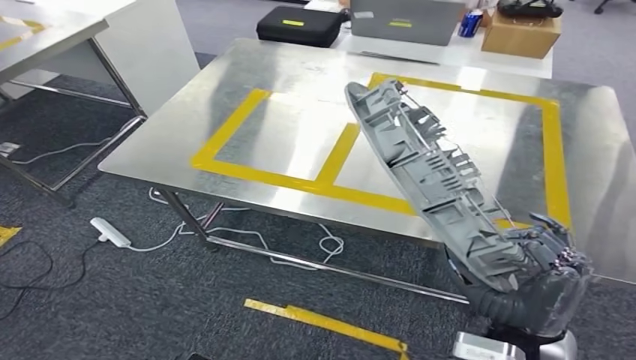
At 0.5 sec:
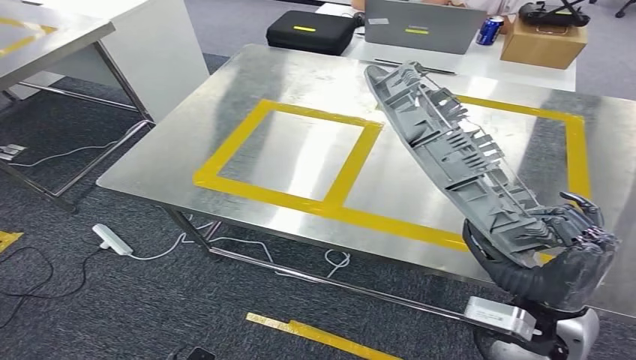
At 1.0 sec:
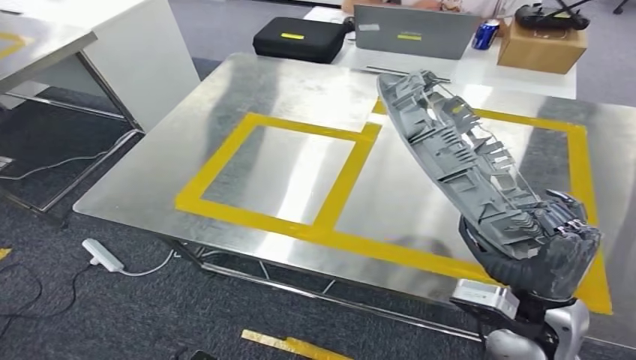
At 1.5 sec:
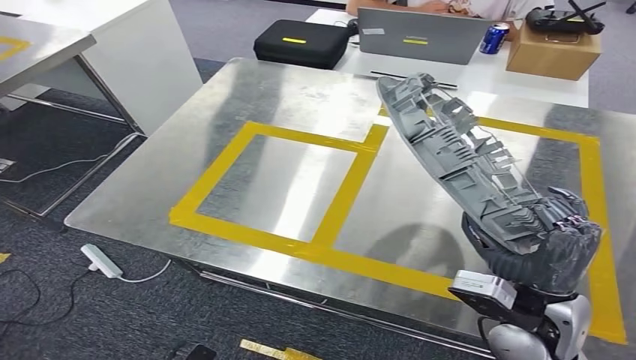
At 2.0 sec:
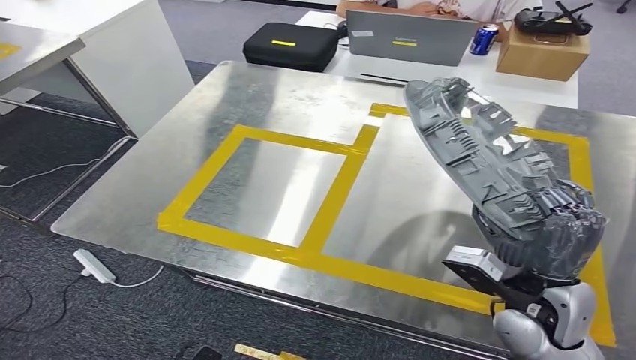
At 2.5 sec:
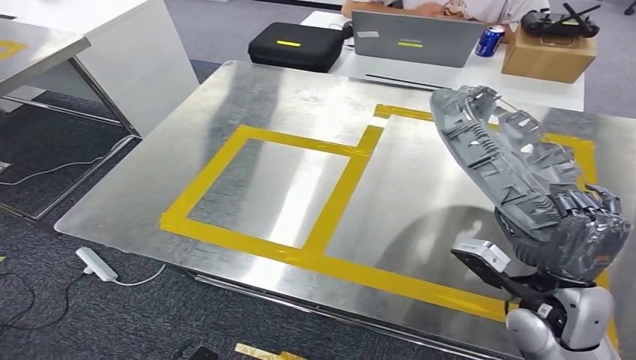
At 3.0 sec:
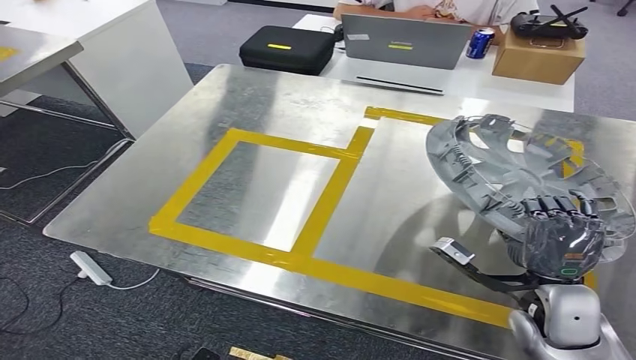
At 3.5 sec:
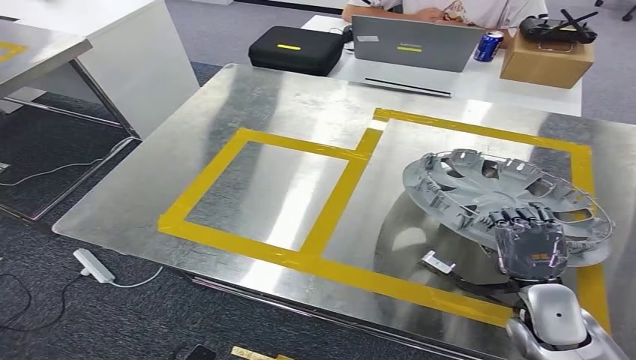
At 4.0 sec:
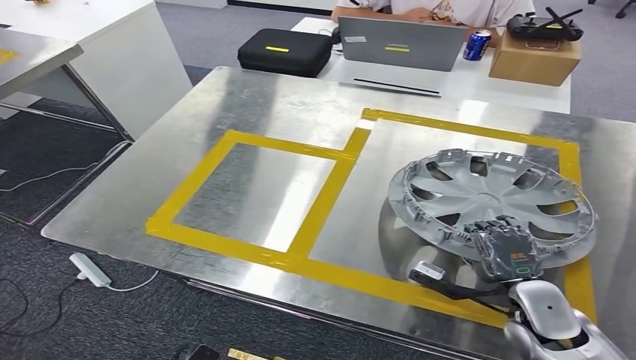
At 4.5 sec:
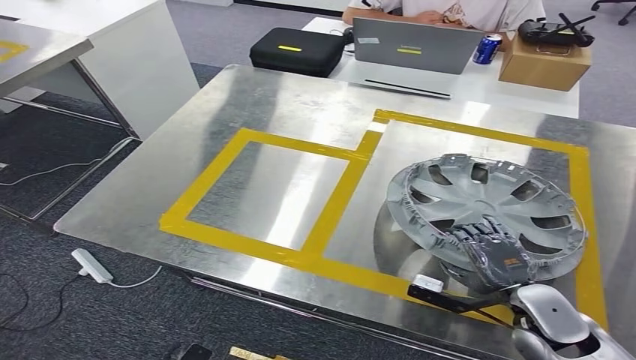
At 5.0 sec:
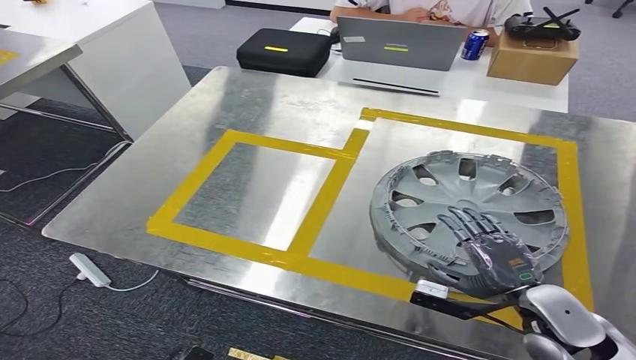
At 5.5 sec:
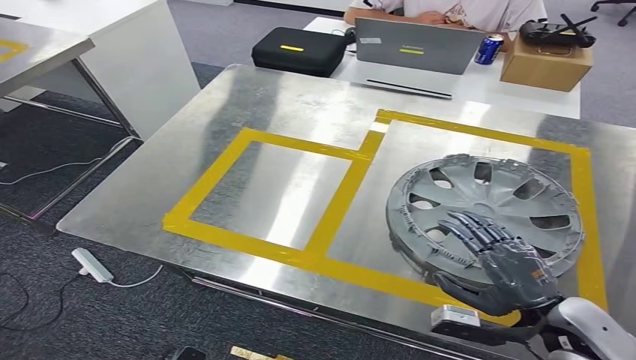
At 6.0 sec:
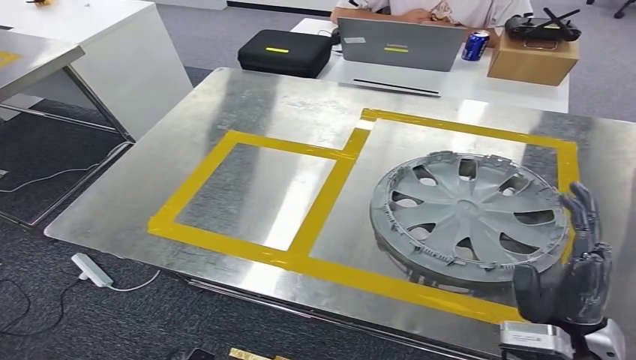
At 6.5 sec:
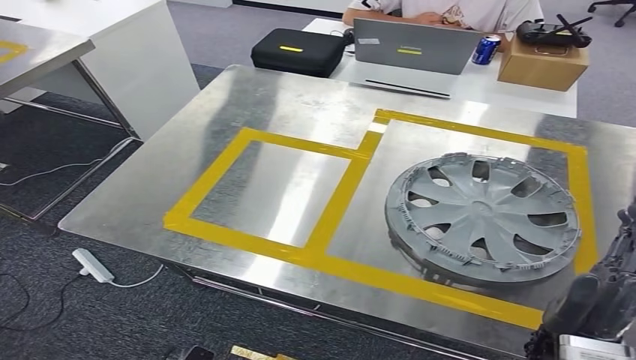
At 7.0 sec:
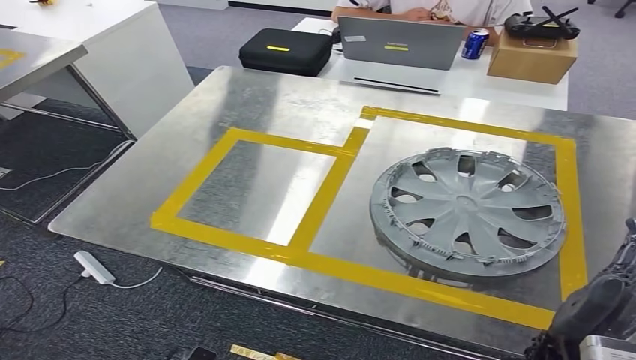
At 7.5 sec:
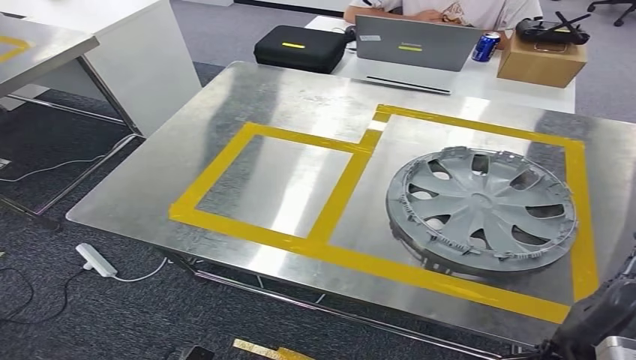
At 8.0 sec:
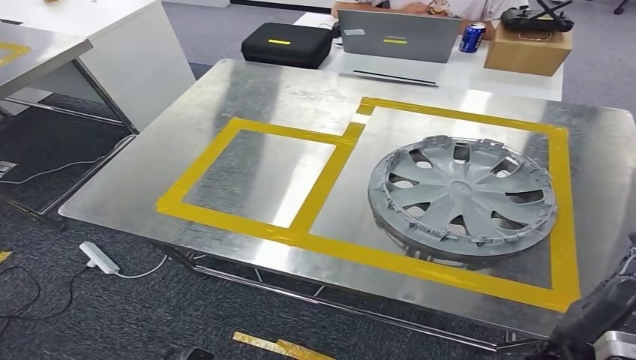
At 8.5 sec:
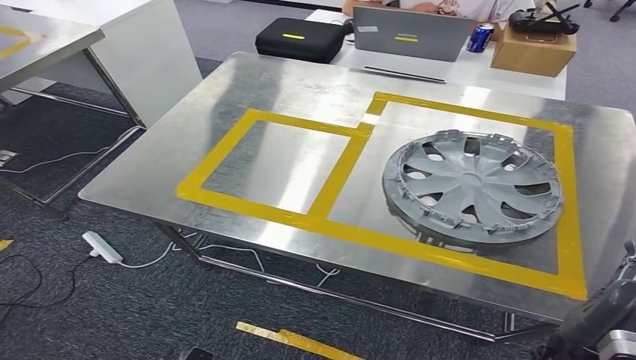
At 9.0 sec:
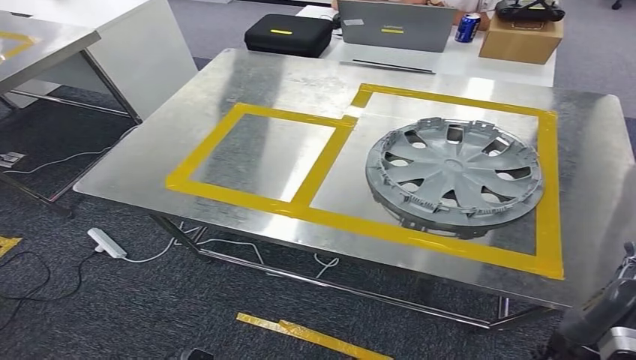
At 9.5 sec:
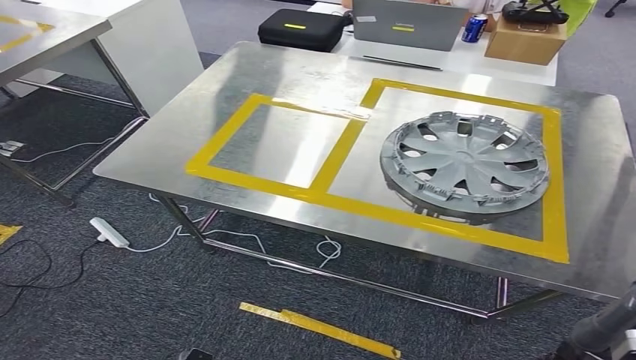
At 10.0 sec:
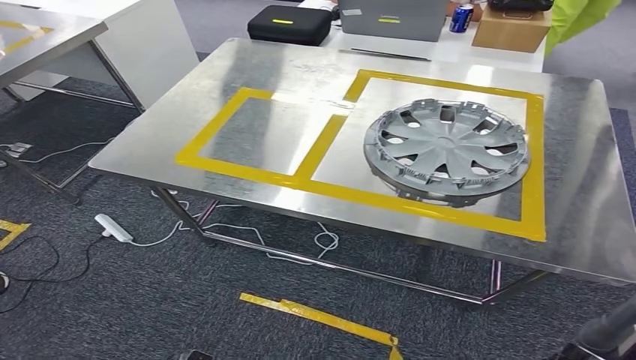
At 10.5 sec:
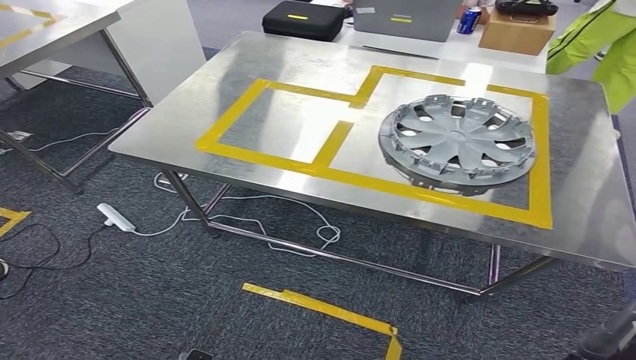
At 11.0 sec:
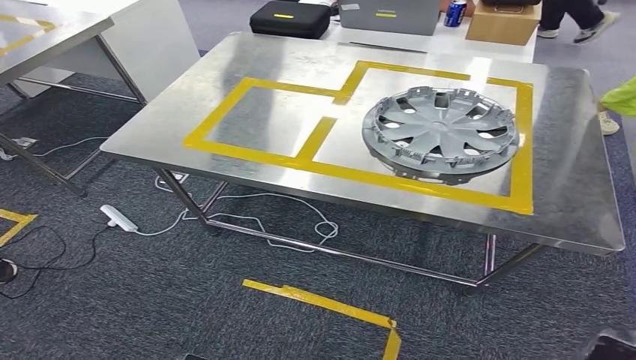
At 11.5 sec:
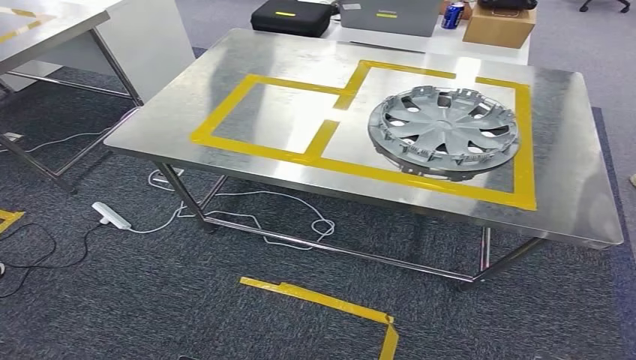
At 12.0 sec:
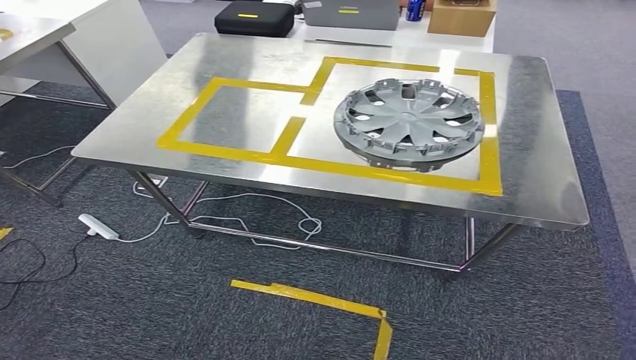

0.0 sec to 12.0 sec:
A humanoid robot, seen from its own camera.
Step, 0.0 sec to 7.0 sec: Insert the small component into the corresponding slot on the workbench.
4.0 sec to 6.0 sec: The right hand heads upward and backward, covering approximately 10 cm.

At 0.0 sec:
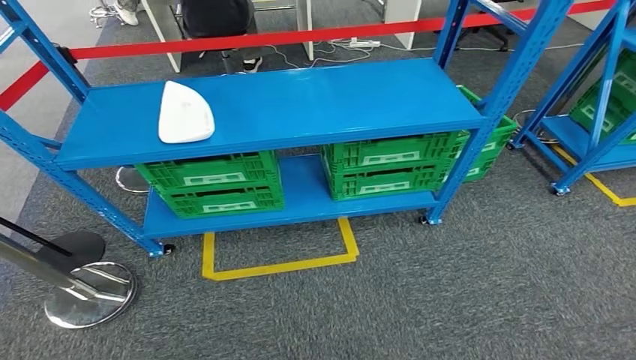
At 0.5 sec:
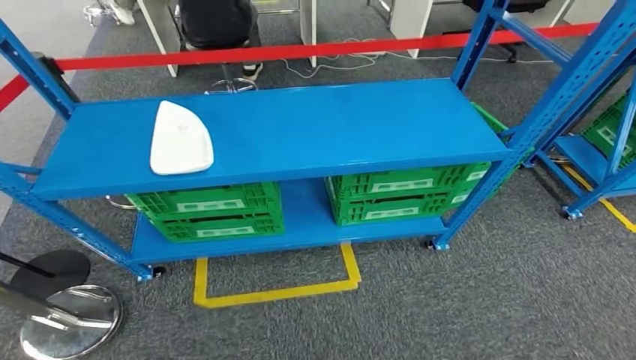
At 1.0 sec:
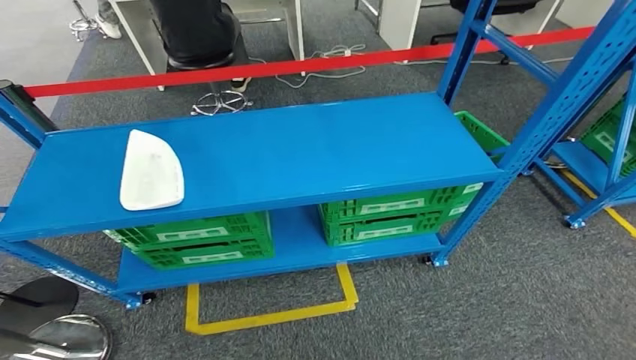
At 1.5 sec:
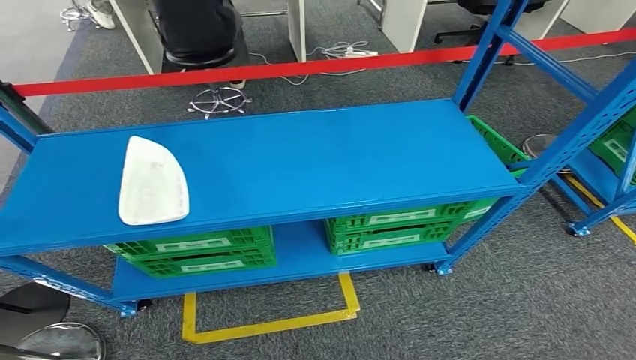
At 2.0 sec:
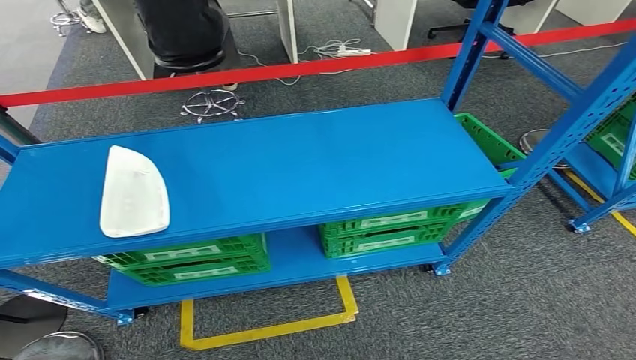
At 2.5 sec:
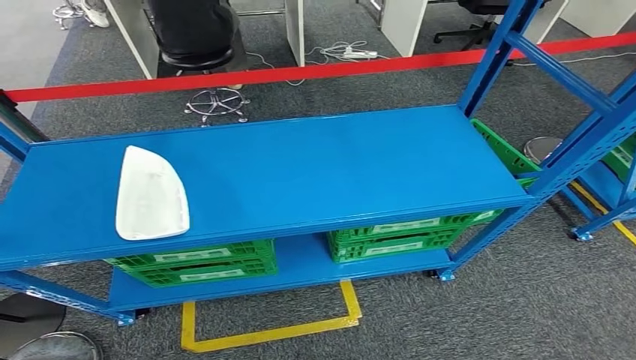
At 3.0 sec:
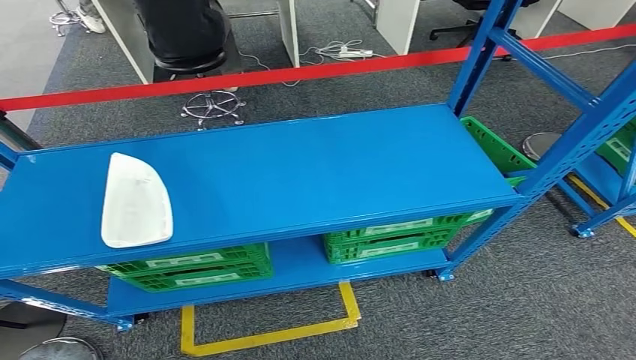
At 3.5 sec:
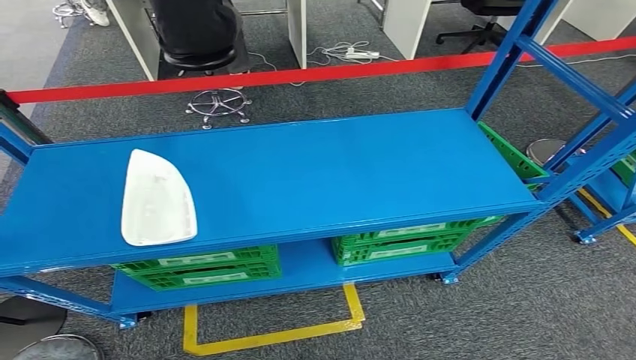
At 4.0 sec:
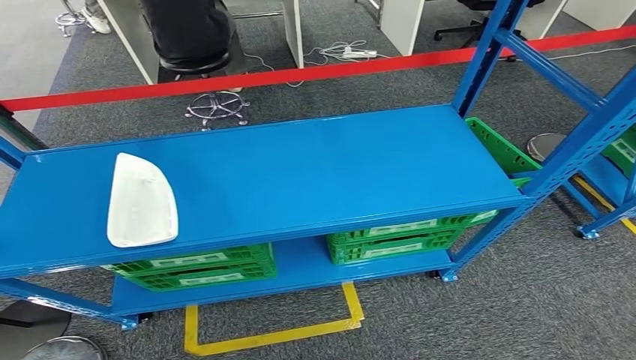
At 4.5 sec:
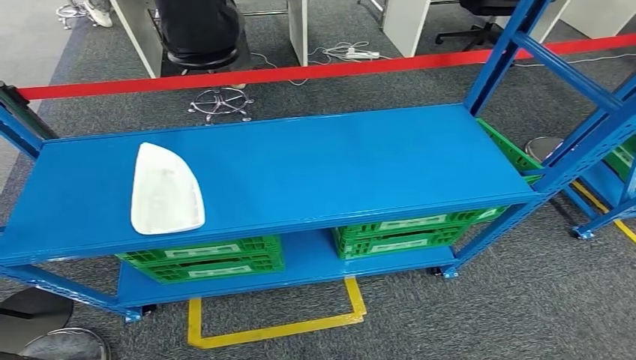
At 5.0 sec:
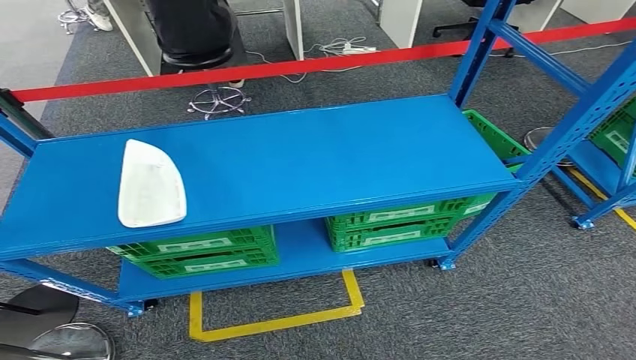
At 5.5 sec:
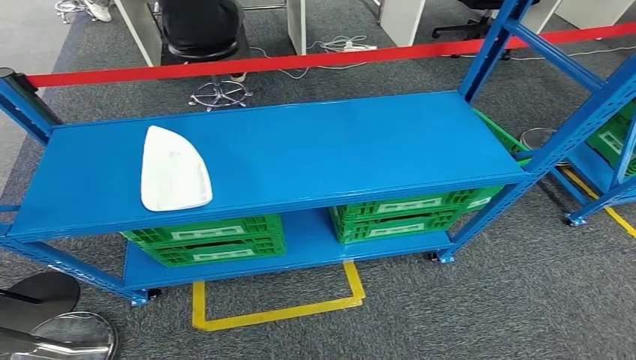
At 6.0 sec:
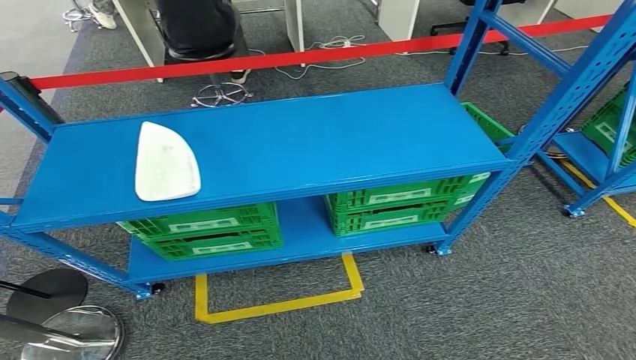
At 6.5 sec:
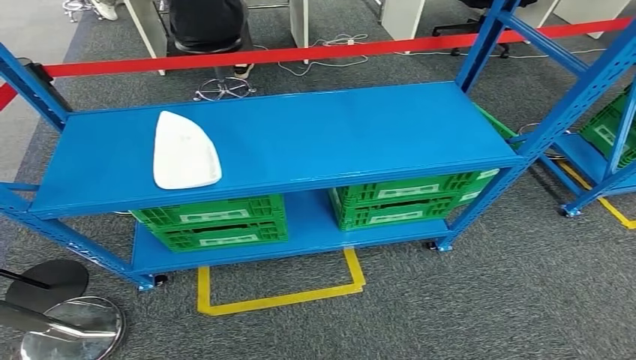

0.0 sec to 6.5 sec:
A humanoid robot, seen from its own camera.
Step, 0.0 sec to 6.0 sec: Return to the initial position at the workbench.
